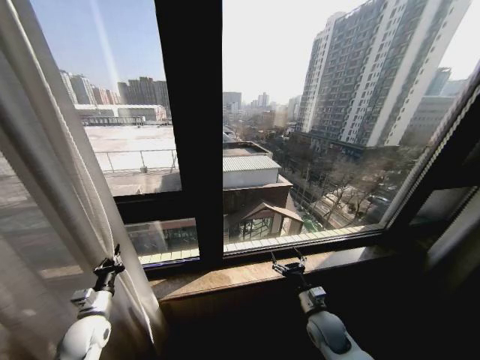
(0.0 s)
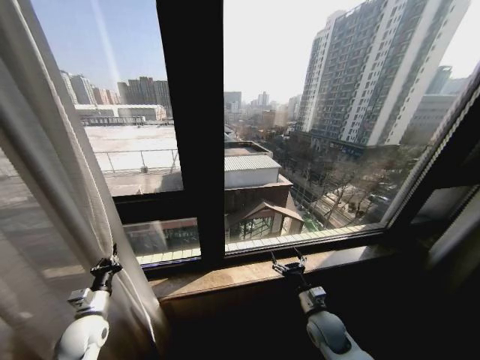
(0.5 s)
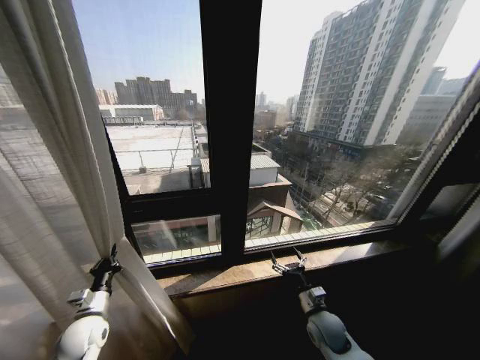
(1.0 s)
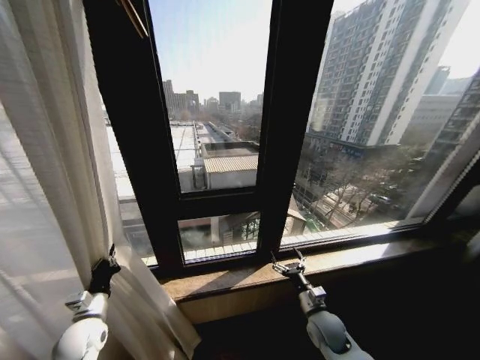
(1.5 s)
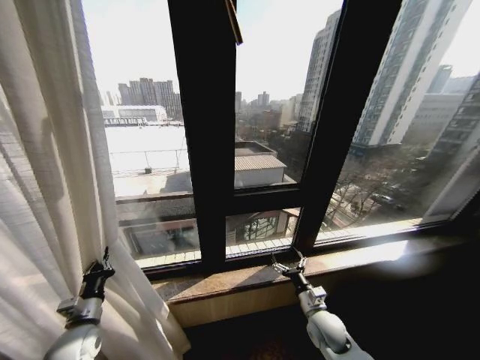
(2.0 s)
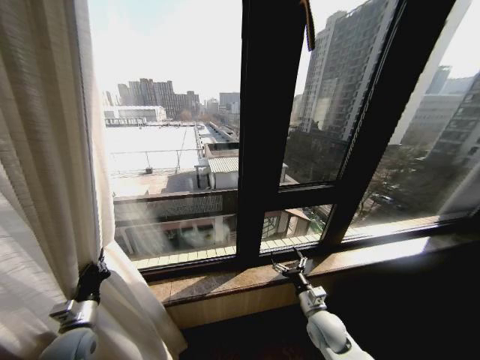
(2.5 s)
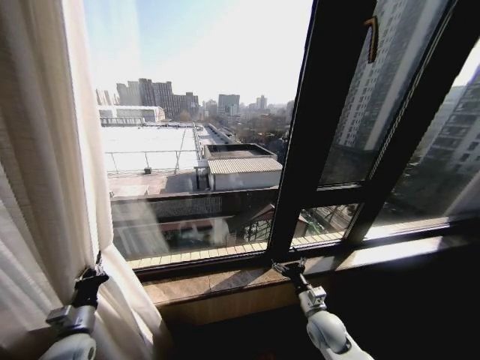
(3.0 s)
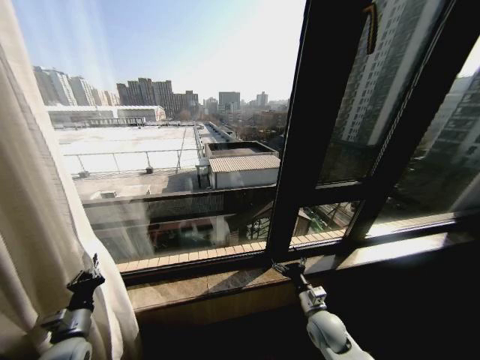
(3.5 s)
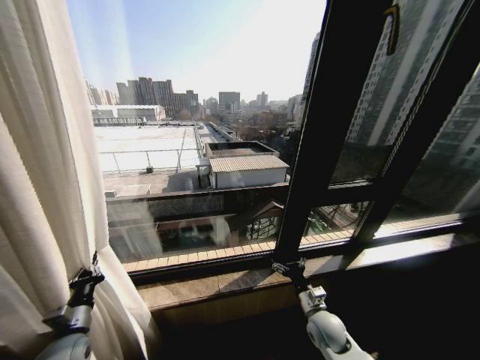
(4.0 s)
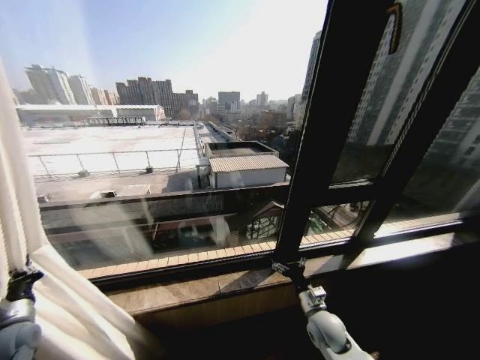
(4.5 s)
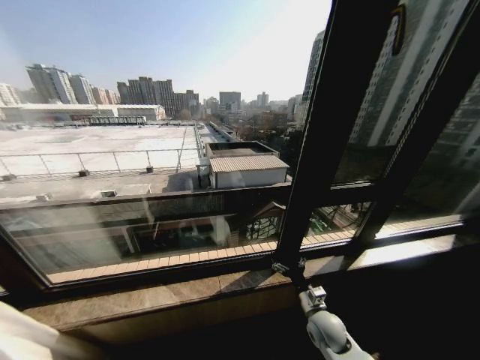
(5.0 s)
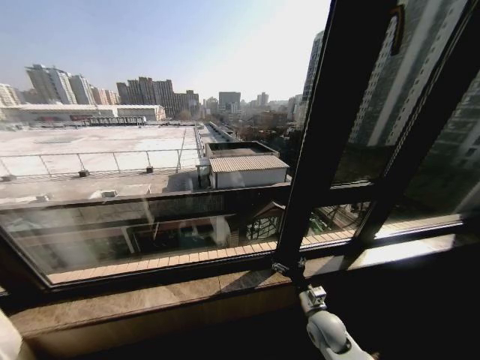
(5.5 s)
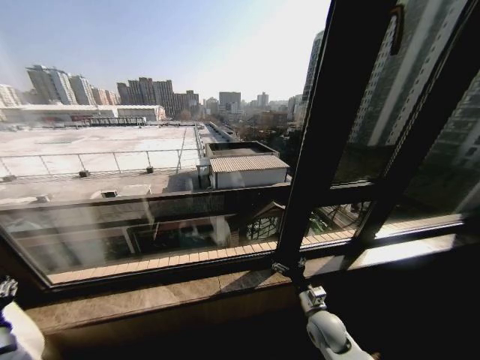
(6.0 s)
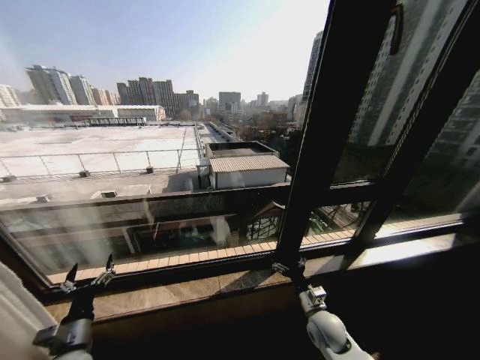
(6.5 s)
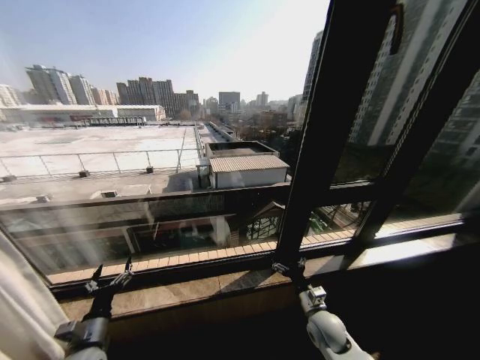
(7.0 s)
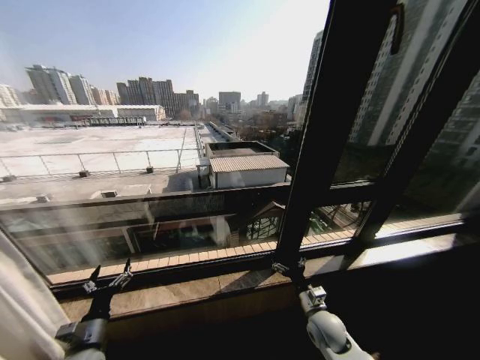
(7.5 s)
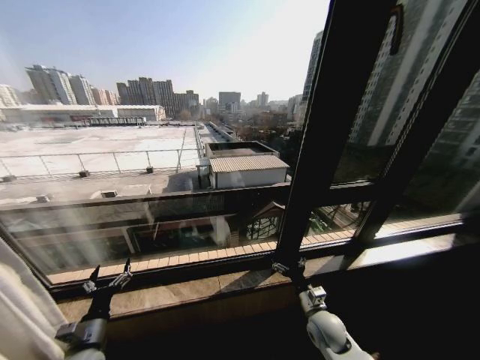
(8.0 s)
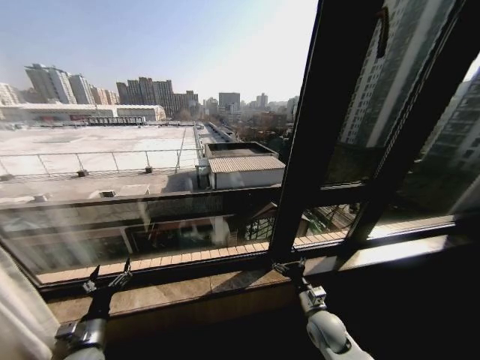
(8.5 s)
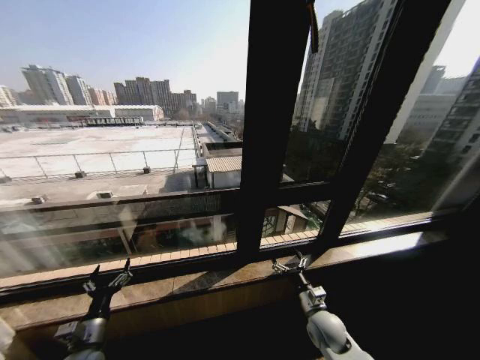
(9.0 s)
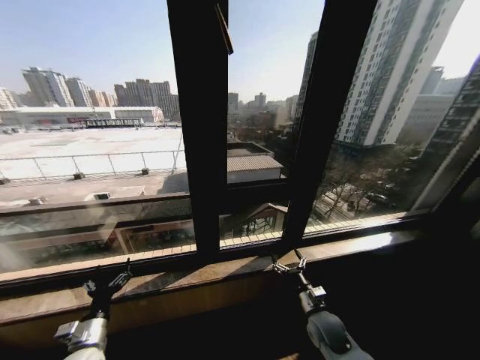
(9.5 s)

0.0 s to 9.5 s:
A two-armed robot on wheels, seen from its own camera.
Task of the whole recording: Open the curtains by pulling them apart, changing their state from closed to fully open.
4.0 to 5.5 s: The left gripper is displaced to the left by approximately 25 cm.
5.5 to 7.5 s: The left gripper goes some 30 cm to the right, and opens up.

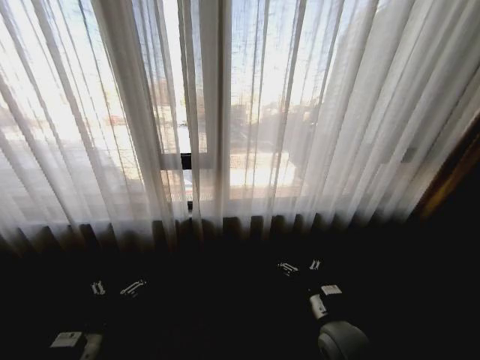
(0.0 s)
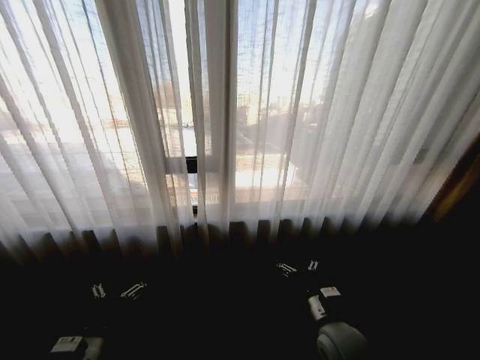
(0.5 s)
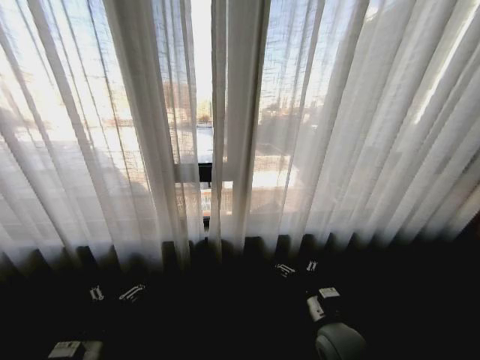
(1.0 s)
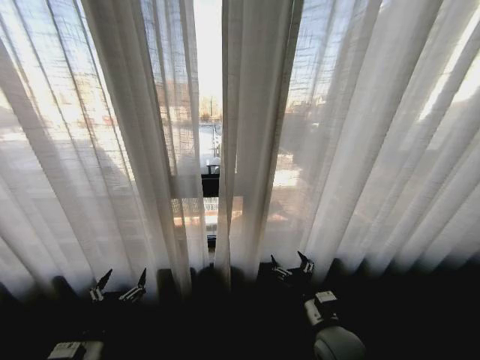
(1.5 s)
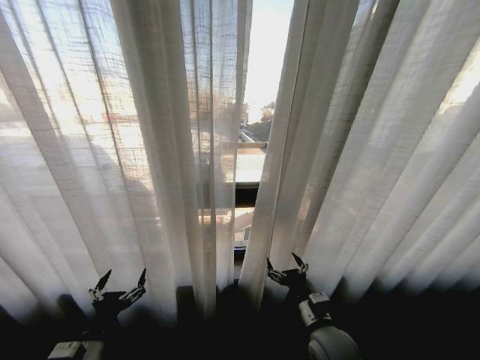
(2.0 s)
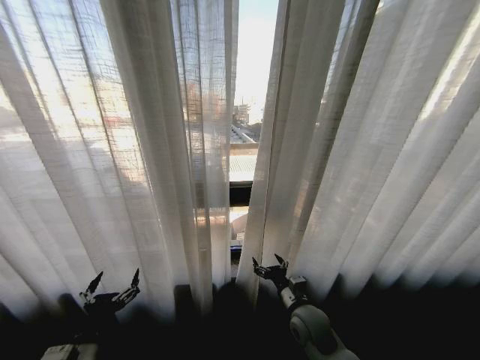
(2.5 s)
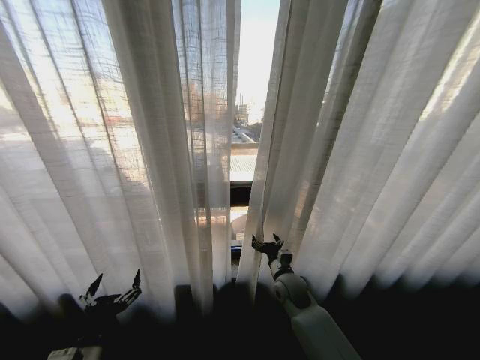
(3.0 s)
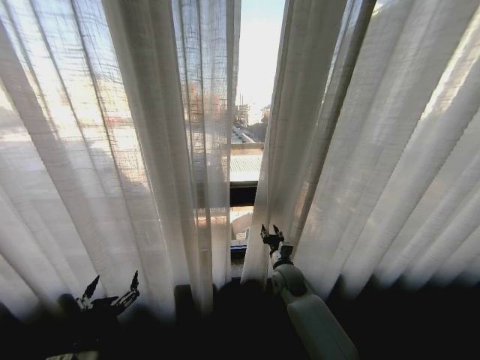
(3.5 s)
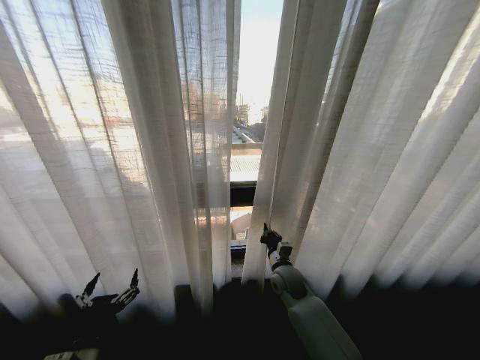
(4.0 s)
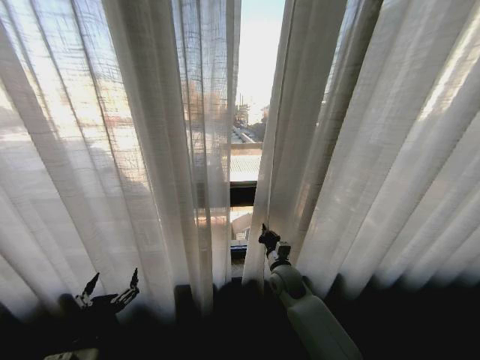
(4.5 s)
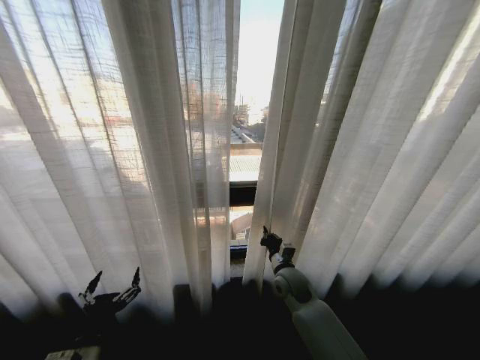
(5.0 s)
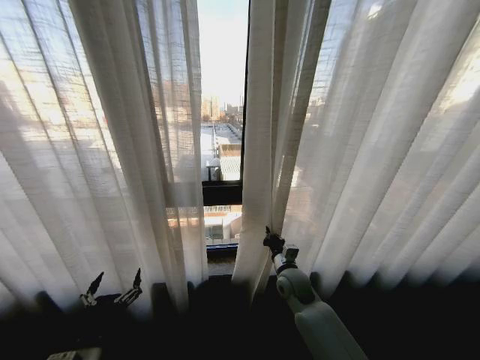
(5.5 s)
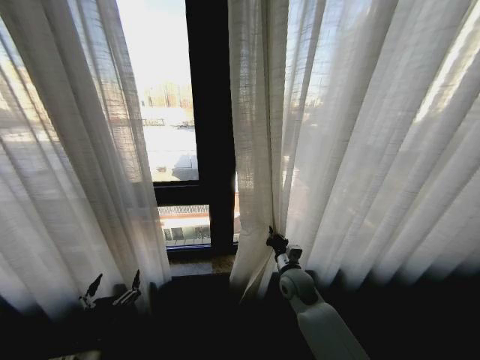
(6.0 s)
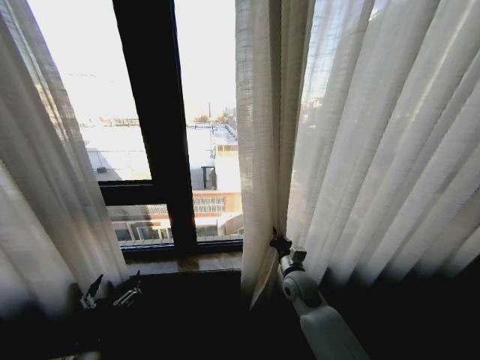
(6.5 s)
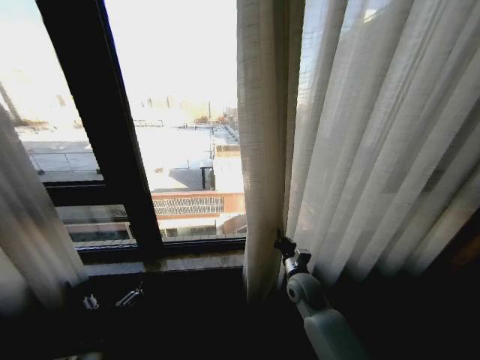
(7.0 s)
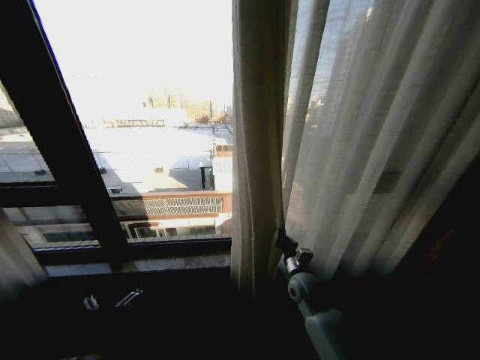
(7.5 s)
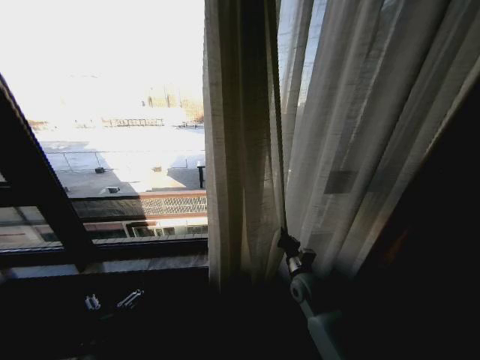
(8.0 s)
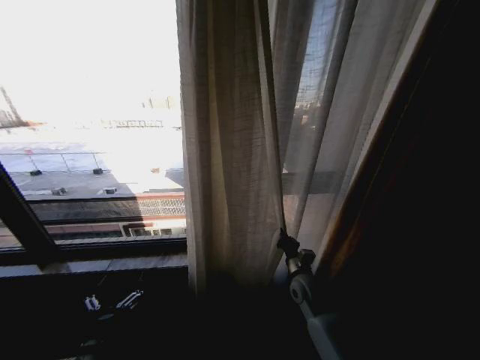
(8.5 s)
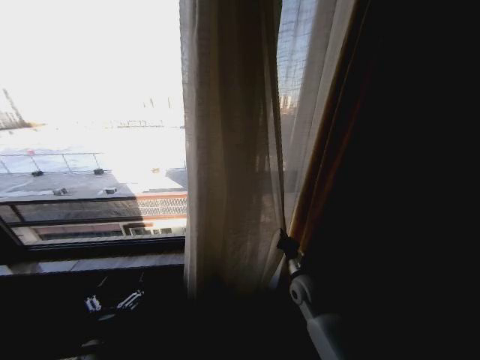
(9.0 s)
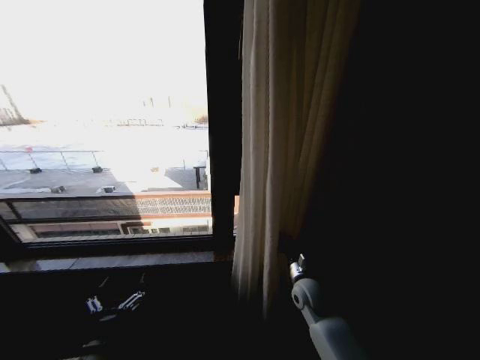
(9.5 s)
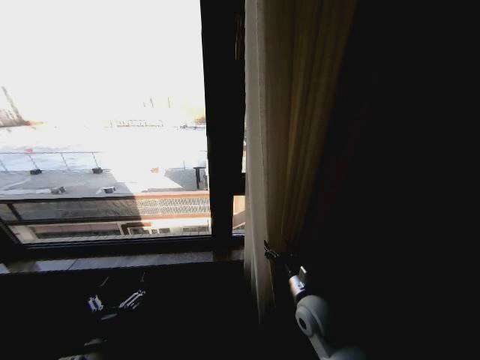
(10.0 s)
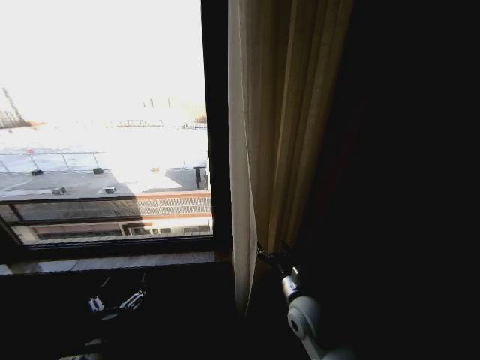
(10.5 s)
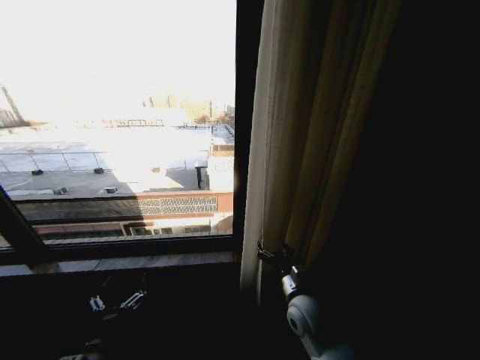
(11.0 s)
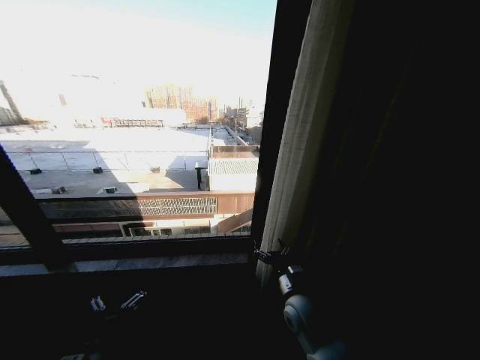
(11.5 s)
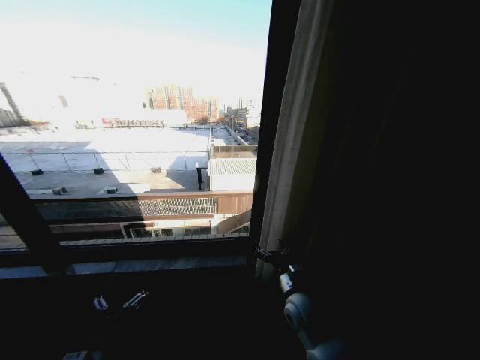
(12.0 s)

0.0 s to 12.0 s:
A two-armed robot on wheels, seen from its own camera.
Task of the whole recording: Open the curtains by pulling them apart, changing their state from closed to fully open.
2.0 to 4.0 s: The right gripper moves forward, approximately 15 cm, and closes its fingers.
8.0 to 10.0 s: The right gripper goes about 10 cm backward, and opens.

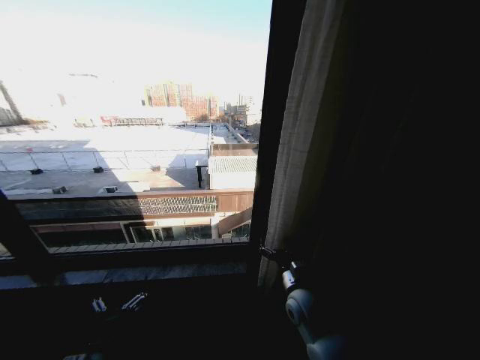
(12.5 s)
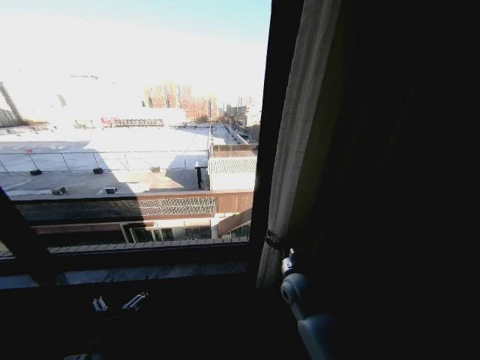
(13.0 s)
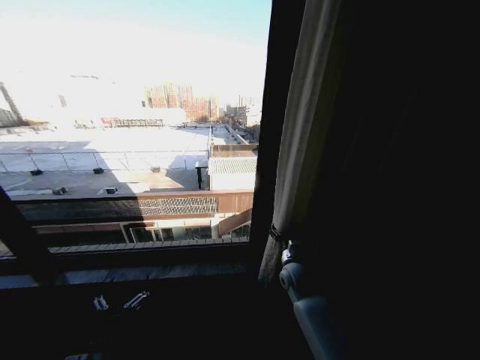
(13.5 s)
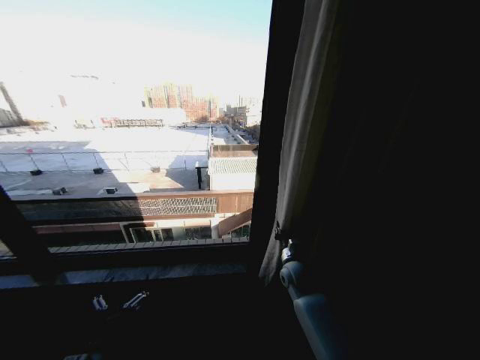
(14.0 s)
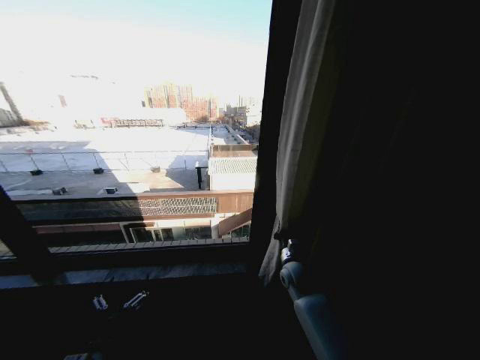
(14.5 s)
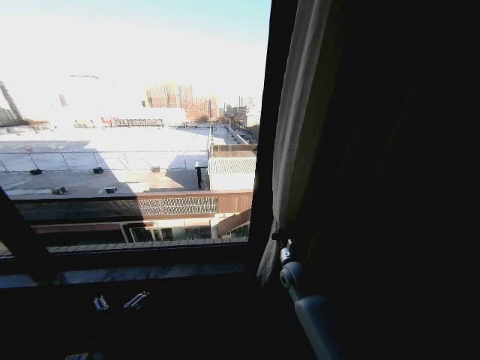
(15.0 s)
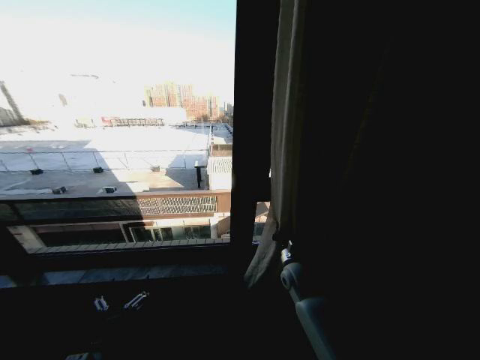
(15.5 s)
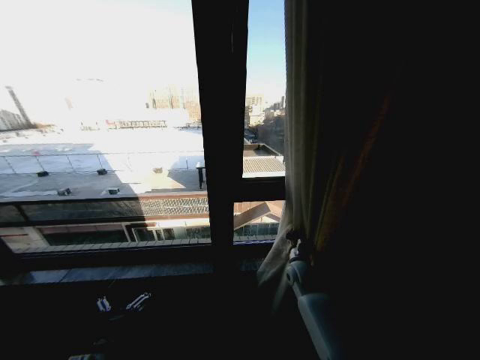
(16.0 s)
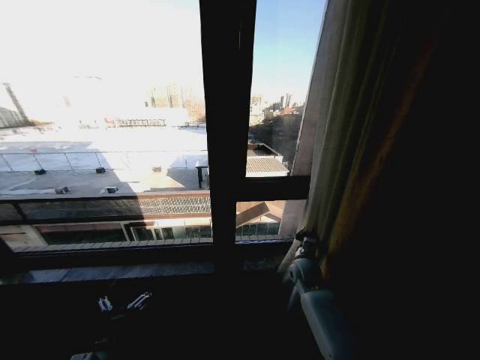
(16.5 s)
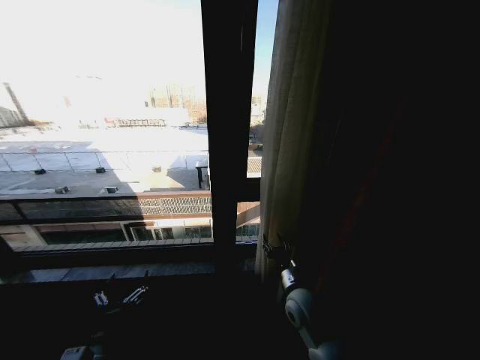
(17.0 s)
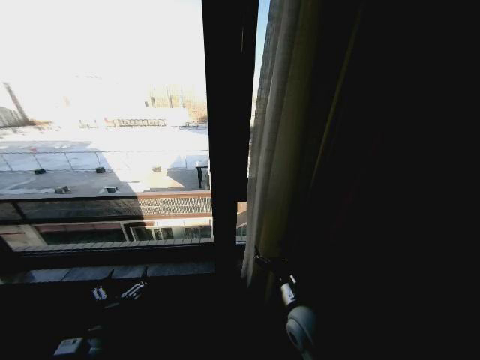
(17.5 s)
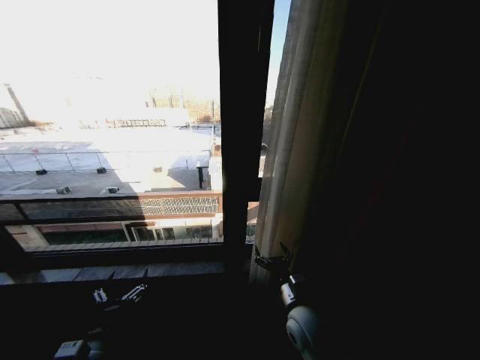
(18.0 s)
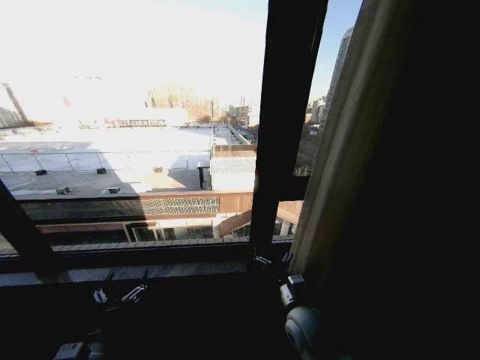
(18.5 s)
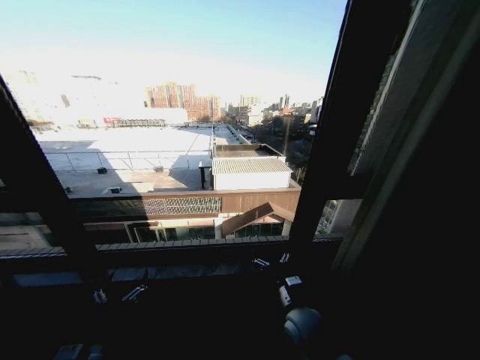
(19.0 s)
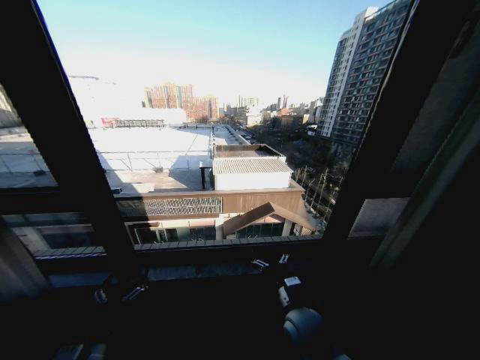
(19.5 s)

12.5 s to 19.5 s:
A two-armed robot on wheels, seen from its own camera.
Task of the whole recording: Open the curtains by pulling them apart, changing their state from closed to fully open.
12.5 to 14.5 s: The right gripper goes some 10 cm forward, and closes.
14.5 to 16.0 s: There are only small adjustments of the grippers.
16.0 to 17.5 s: The right gripper is displaced backward by about 15 cm, and opens up.
